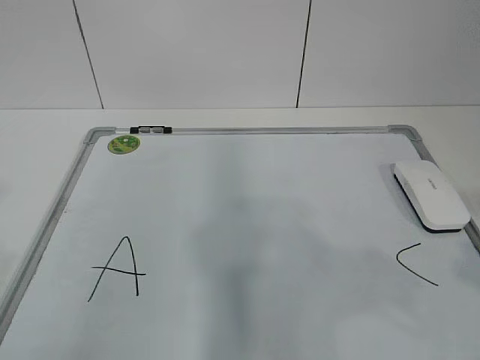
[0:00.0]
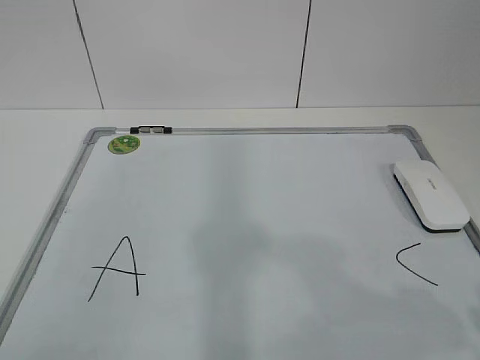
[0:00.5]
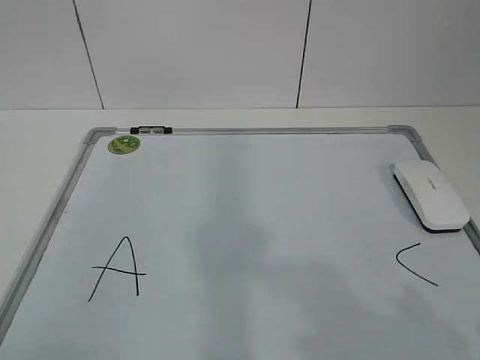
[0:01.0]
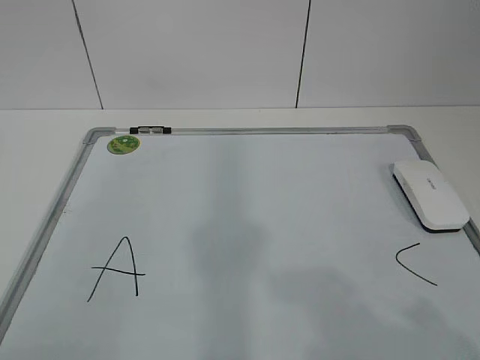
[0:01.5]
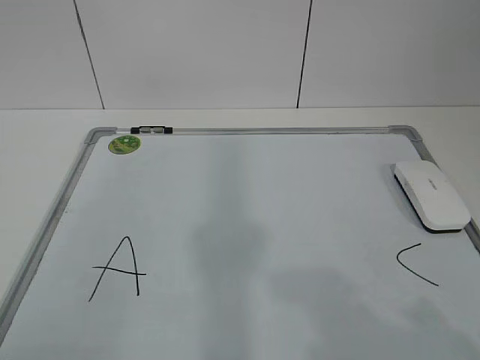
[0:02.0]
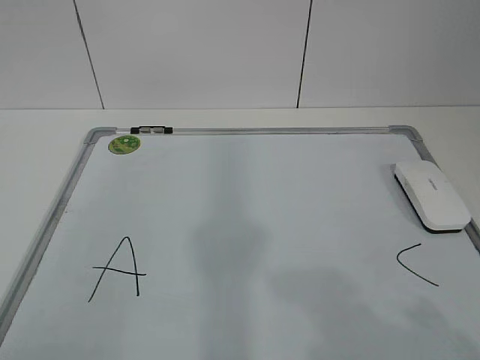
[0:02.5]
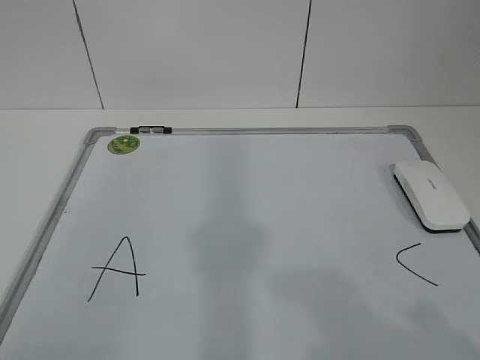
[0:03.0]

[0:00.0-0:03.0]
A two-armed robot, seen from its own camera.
Task of the whole recording: pick up the eraser on the blackboard and erase the letter "B".
0:00.0 to 0:01.5: The right gripper is displaced downward and backward by approximately 10 cm.
0:01.5 to 0:03.0: Neither gripper changes place.
